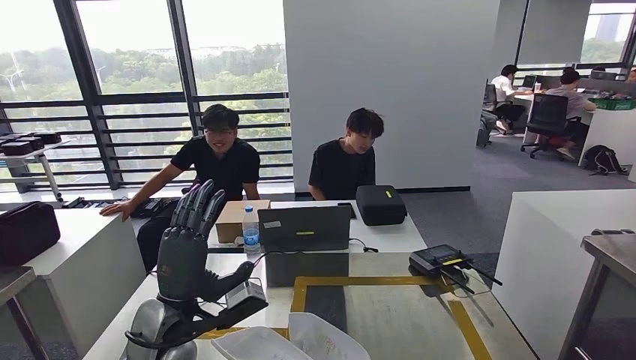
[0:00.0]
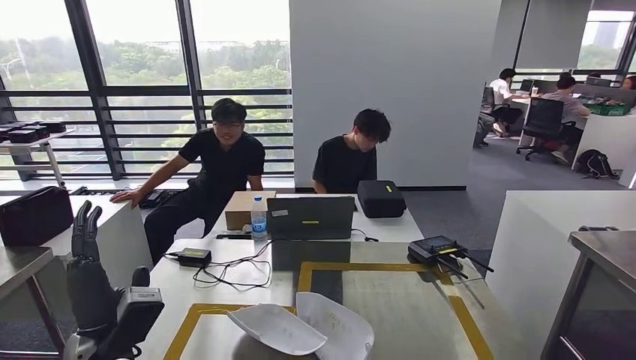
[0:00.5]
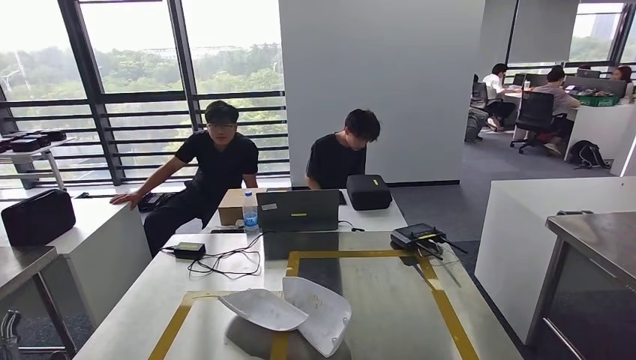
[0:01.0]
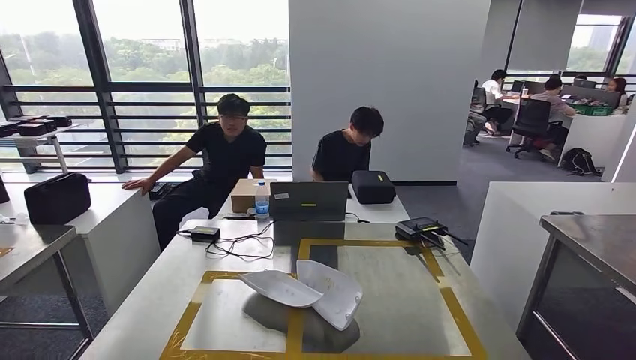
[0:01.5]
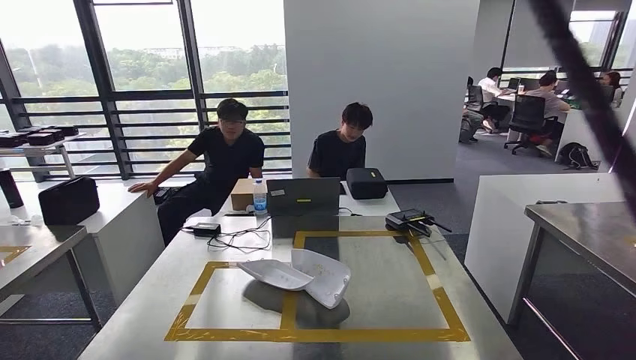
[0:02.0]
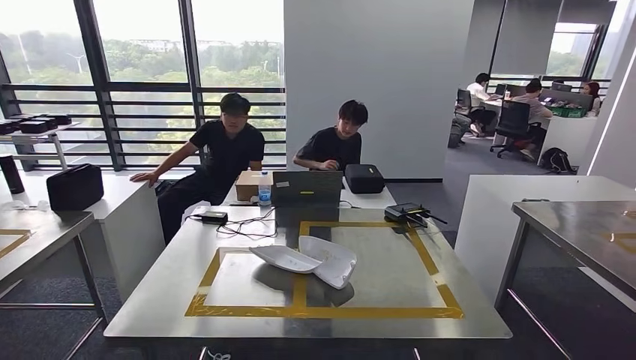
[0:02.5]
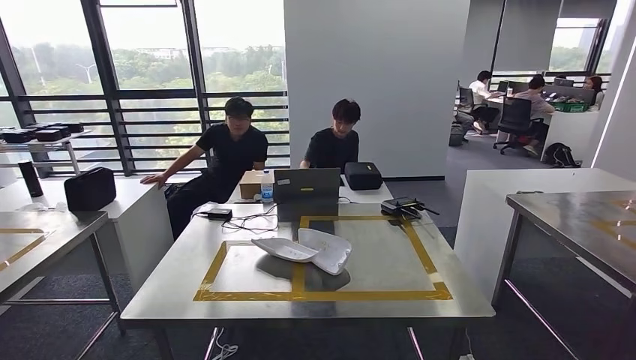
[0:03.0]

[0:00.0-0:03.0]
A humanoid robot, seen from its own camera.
Step, 0:00.5 to 0:03.0: Return to the initial position at the workbench.
